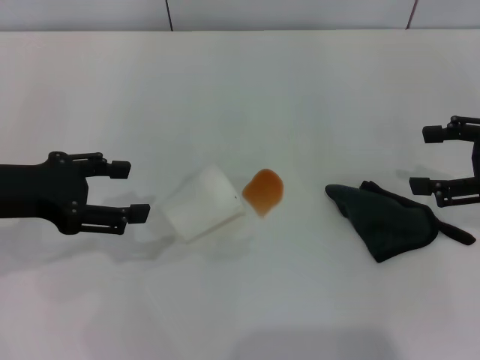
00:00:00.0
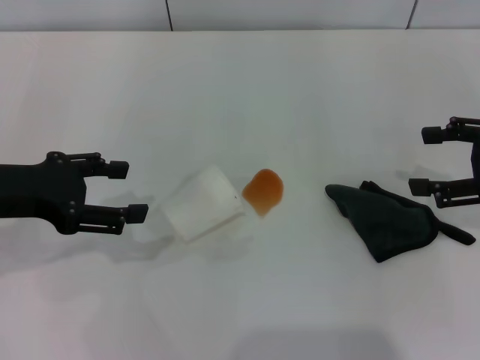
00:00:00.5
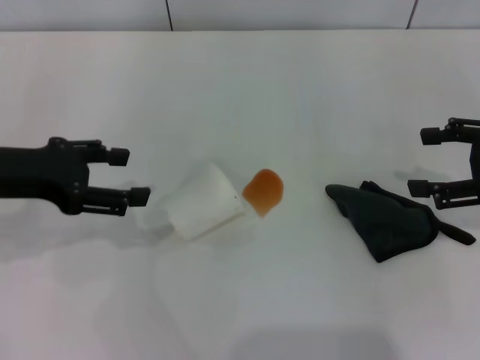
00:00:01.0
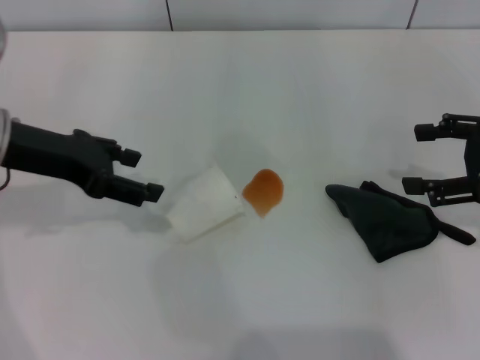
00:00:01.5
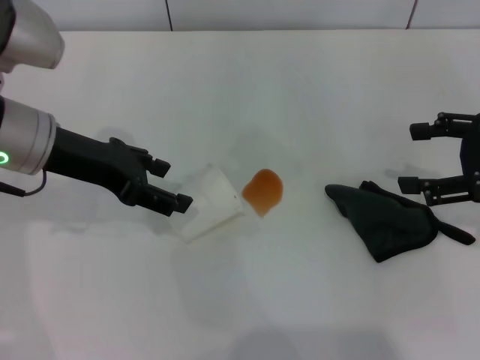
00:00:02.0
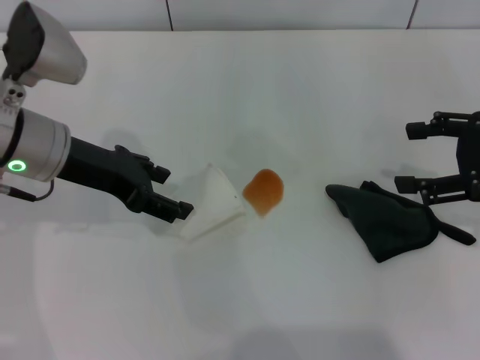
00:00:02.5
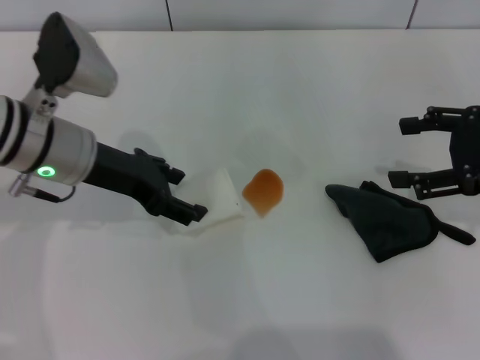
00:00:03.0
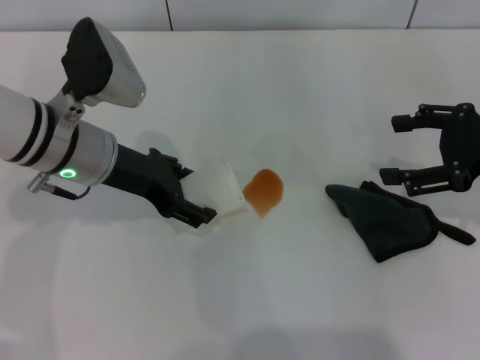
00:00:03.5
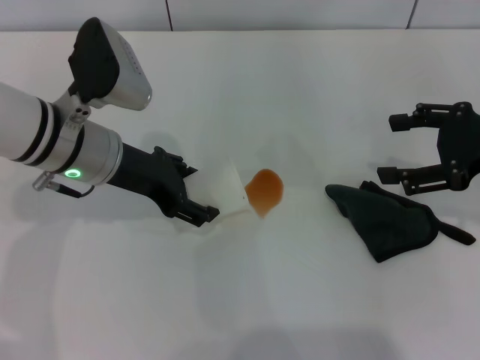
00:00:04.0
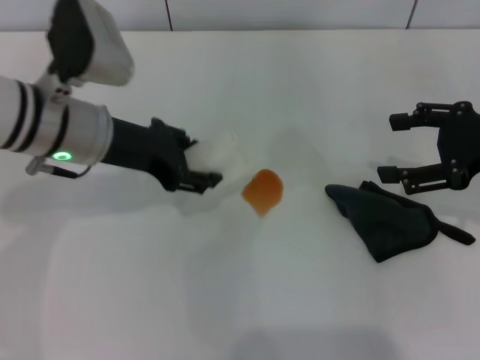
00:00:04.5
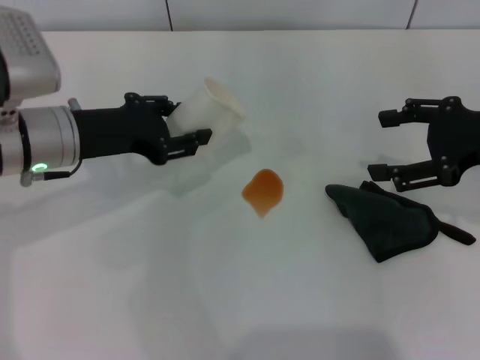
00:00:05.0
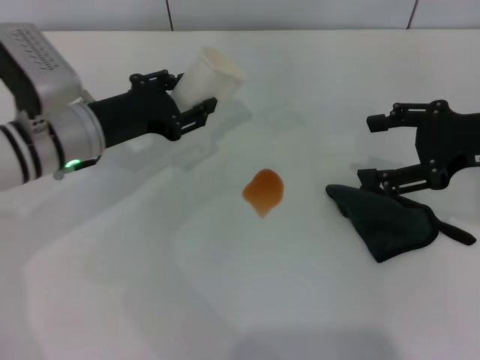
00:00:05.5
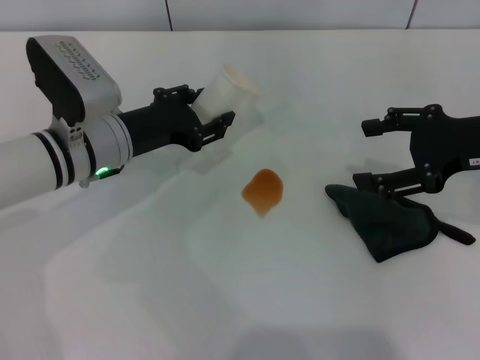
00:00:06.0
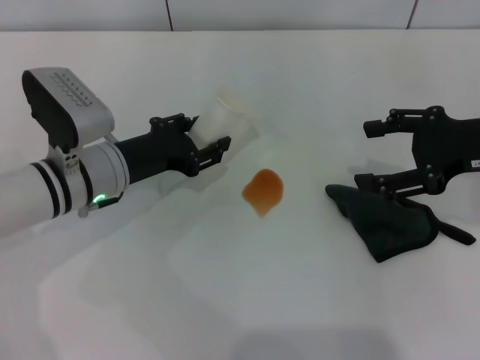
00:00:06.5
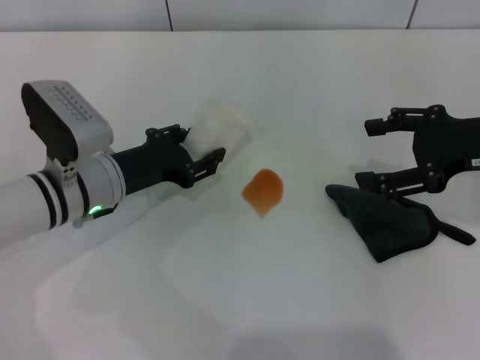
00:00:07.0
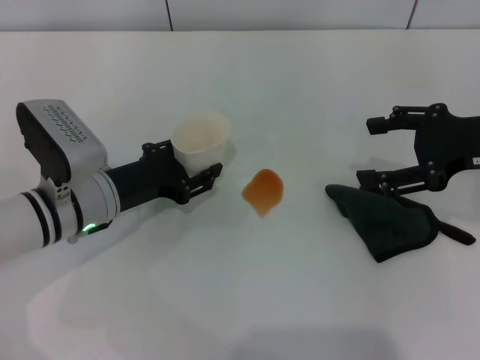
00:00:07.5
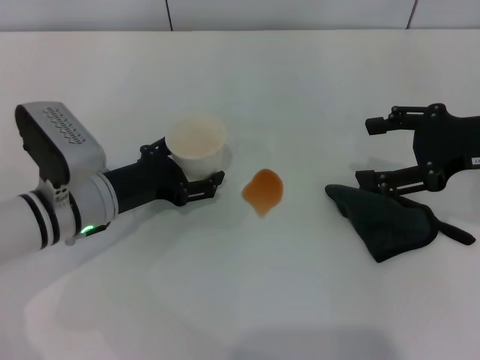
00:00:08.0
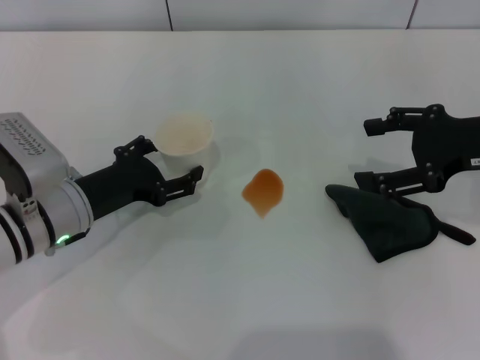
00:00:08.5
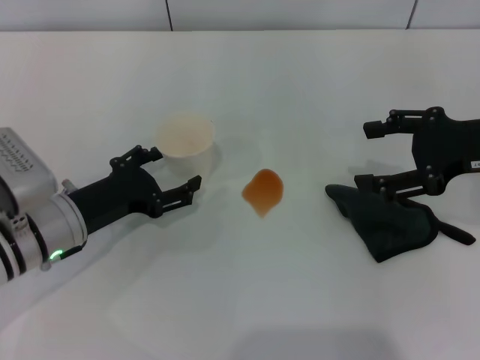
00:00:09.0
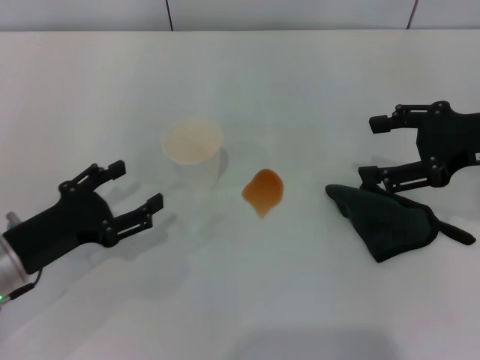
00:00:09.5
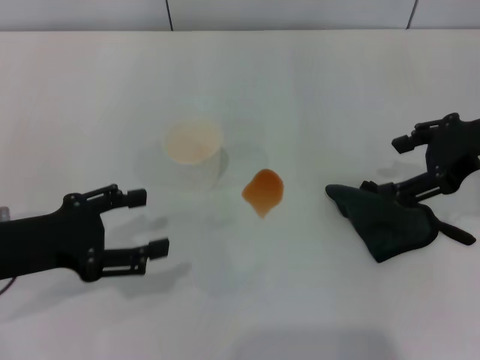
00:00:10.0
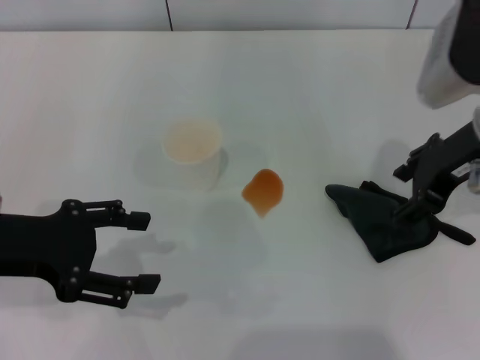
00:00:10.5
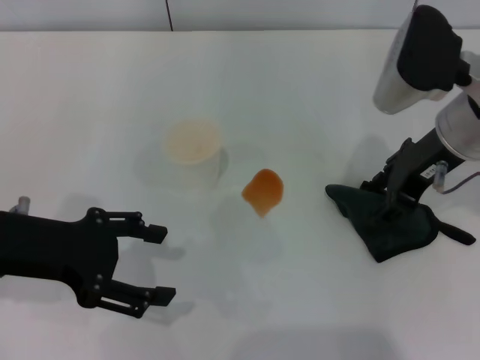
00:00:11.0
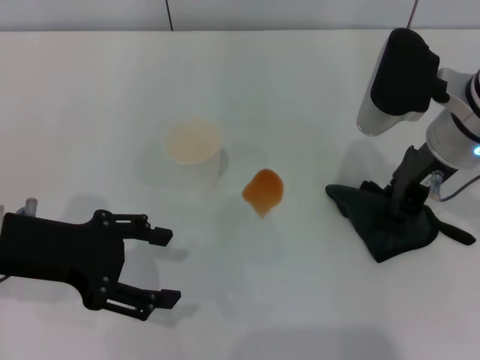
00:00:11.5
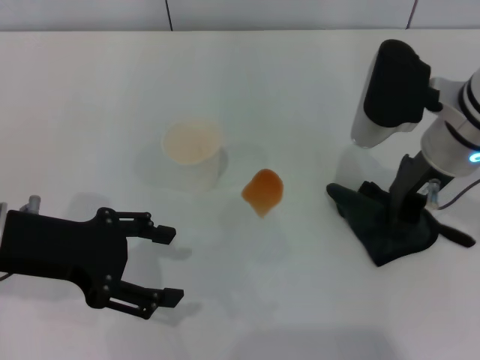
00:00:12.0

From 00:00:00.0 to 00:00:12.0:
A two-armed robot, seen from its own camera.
Step, from 00:00:00.0 to 00:00:04.0: Grasp the paper cup with the left gripper.
Step, from 00:00:04.5 to 00:00:09.0: Stand the paper cup upright with the left gripper.
Step, from 00:00:09.5 to 00:00:11.5: Grasp the rag with the right gripper.
From 00:00:00.0 to 00:00:02.0: The left gripper is displaced to the right and forward by approximately 10 cm.
From 00:00:02.0 to 00:00:04.0: The left gripper changes place by roughly 5 cm.
From 00:00:04.0 to 00:00:06.0: The left gripper goes about 5 cm downward, and closes its fingers.
From 00:00:06.0 to 00:00:08.0: The left gripper shifts by some 5 cm, and opens.
From 00:00:08.0 to 00:00:10.0: The left gripper goes approximately 15 cm to the left, backward and upward.
From 00:00:10.0 to 00:00:12.0: The left gripper shifts by roughly 5 cm; the right gripper is displaced to the left by some 10 cm, and closes.

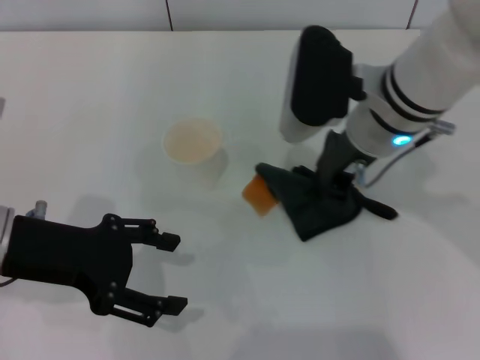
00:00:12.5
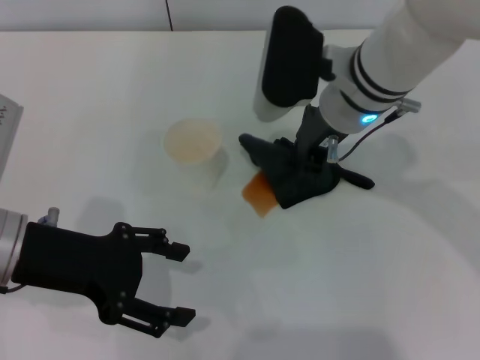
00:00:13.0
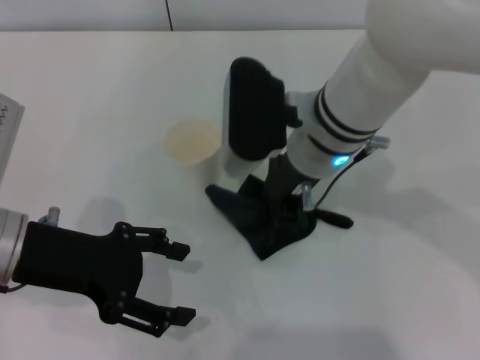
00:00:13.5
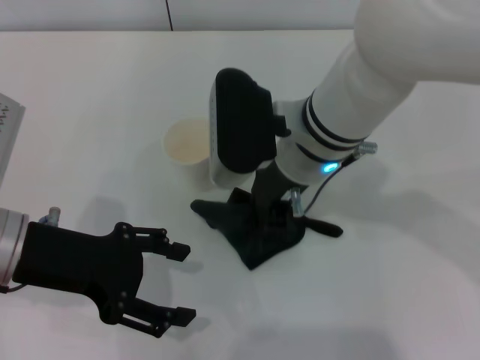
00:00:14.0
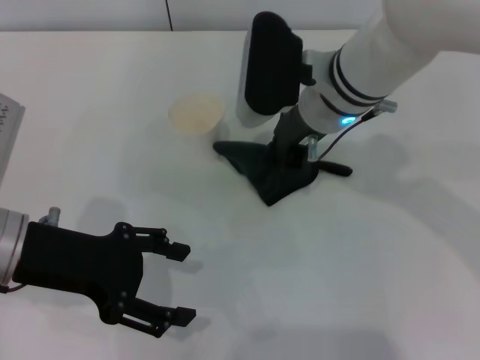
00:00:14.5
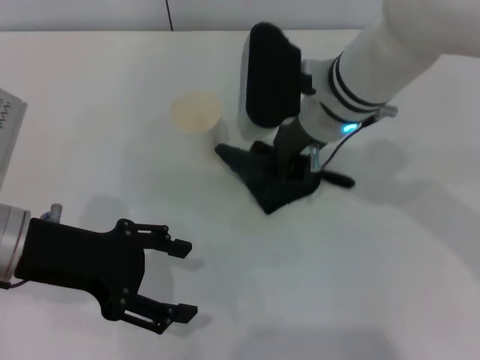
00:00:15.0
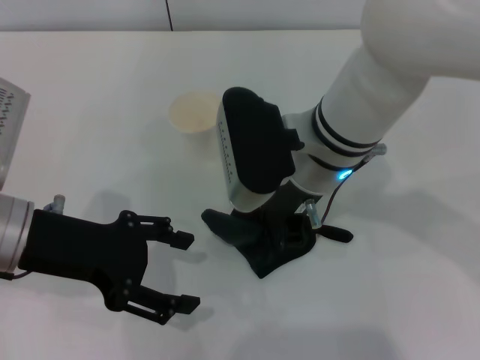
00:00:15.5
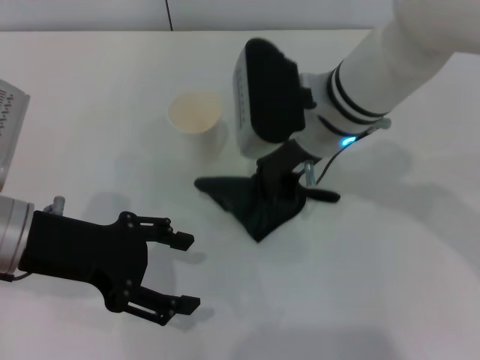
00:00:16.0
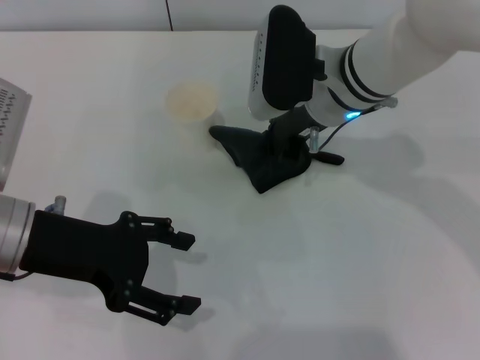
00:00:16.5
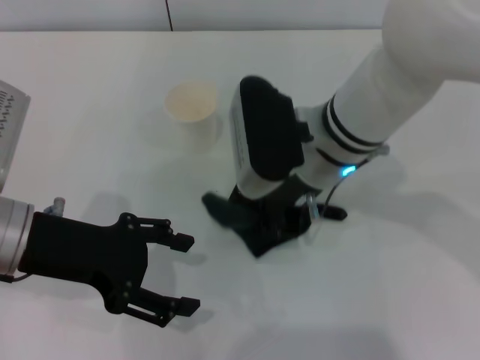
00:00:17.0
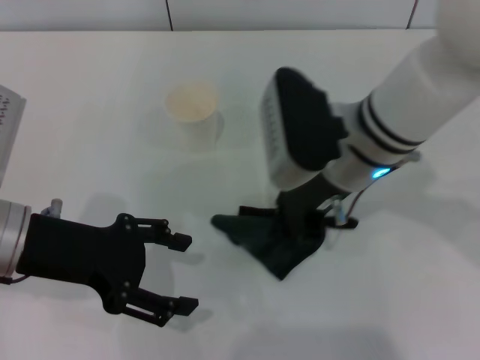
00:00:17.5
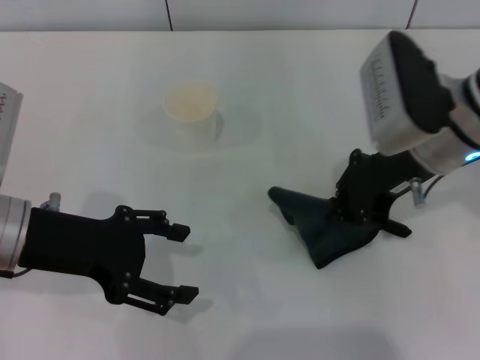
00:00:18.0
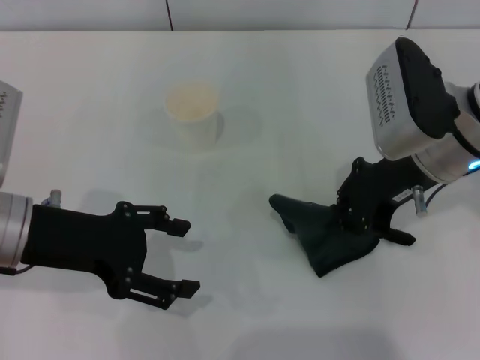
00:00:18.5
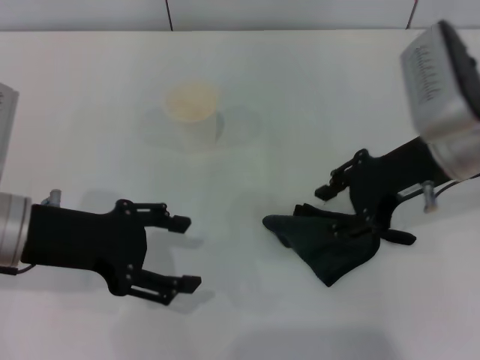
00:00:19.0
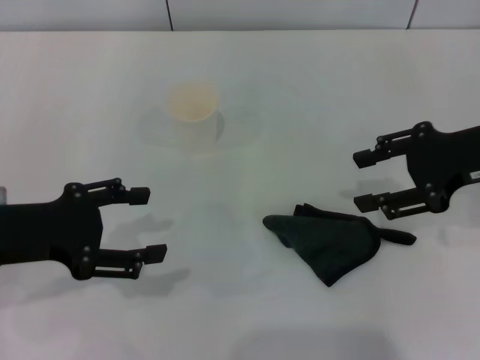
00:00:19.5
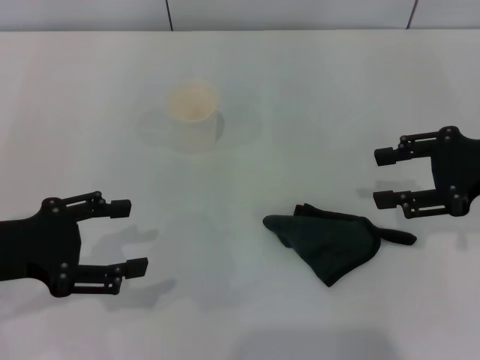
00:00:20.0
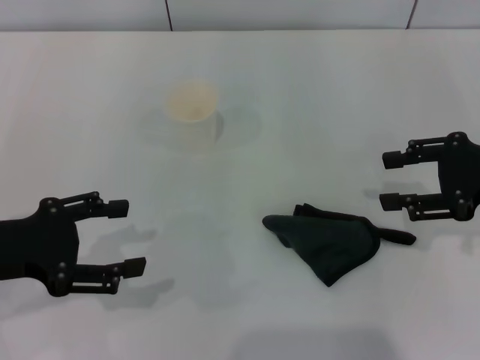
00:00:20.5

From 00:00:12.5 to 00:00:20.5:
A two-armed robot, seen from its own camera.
Step, from 00:00:12.5 to 00:00:18.0: Wipe the stains off the table with the right gripper.
Step, from 00:00:18.5 to 00:00:19.0: Place the rag on the table with the right gripper.
From 00:00:12.5 to 00:00:14.5: The right gripper ends up approximately 5 cm from where it was.
From 00:00:14.5 to 00:00:16.5: There are only small adjustments of the grippers.
From 00:00:16.5 to 00:00:18.5: The right gripper travels to the right and backward by roughly 10 cm.
From 00:00:18.5 to 00:00:20.5: The right gripper heads to the right, covering approximately 15 cm, and opens up; the left gripper moves to the left, some 5 cm.
